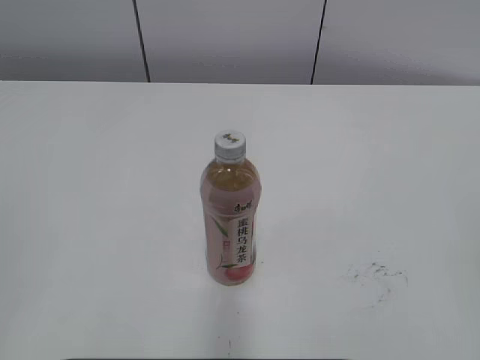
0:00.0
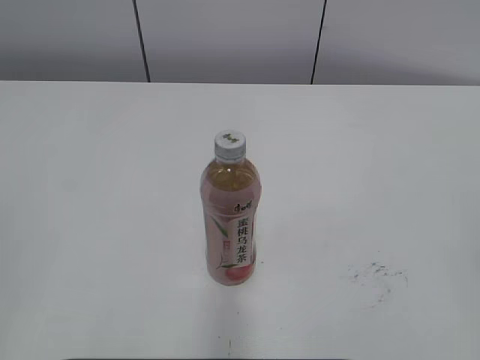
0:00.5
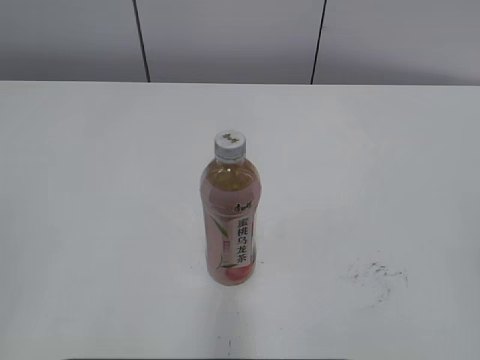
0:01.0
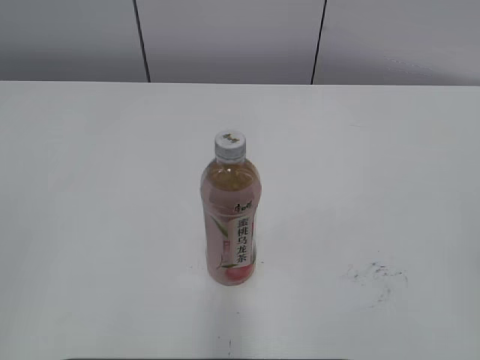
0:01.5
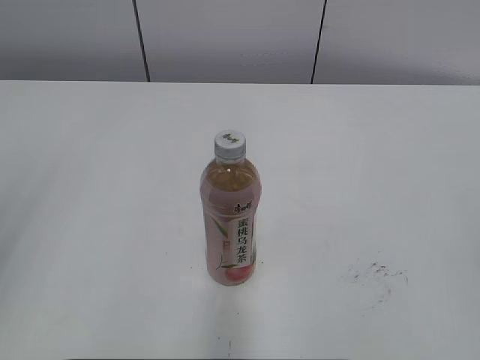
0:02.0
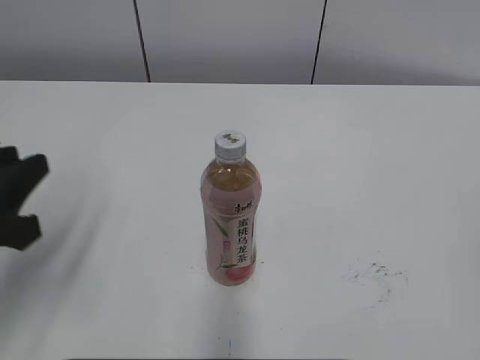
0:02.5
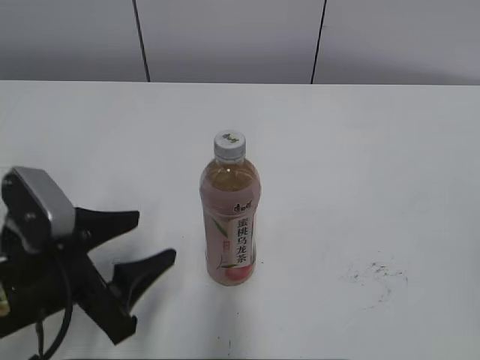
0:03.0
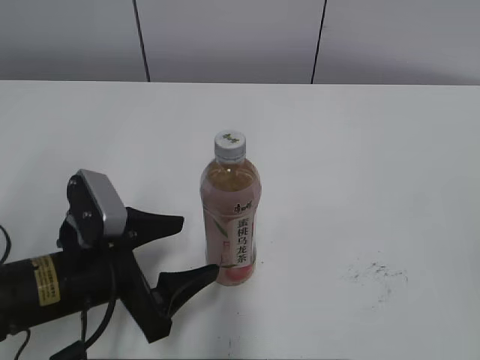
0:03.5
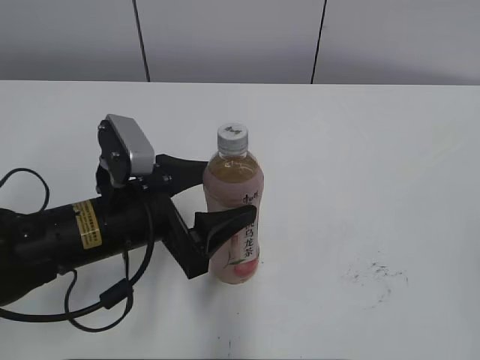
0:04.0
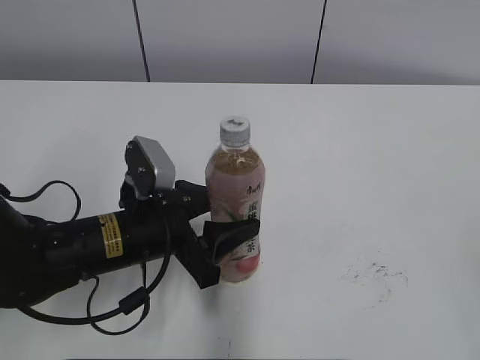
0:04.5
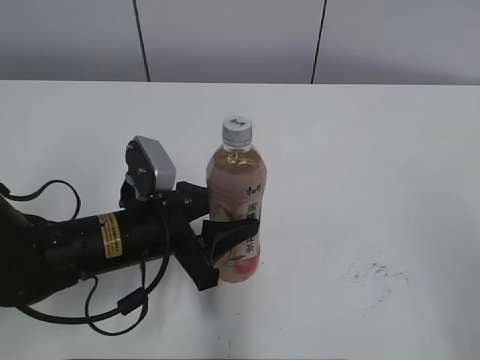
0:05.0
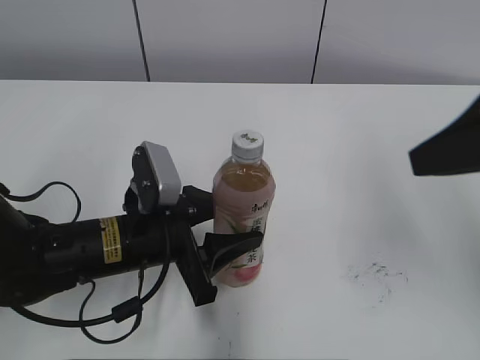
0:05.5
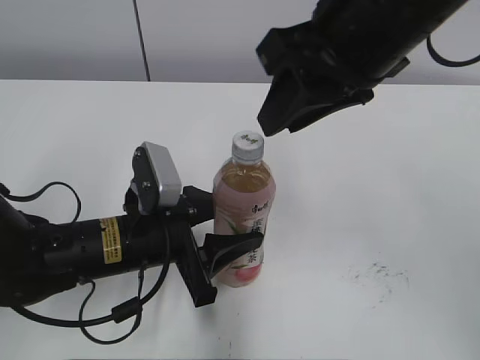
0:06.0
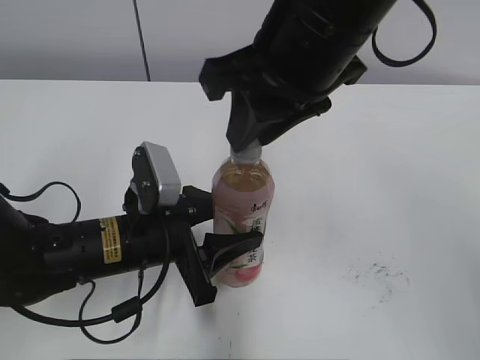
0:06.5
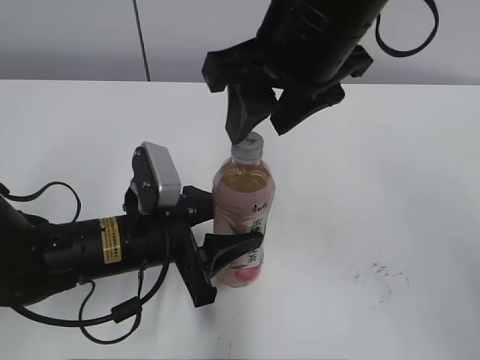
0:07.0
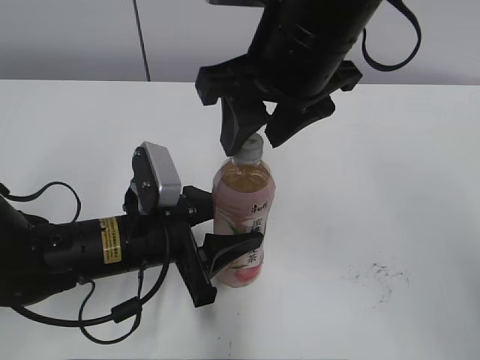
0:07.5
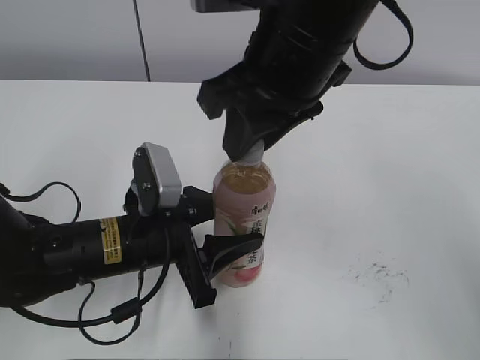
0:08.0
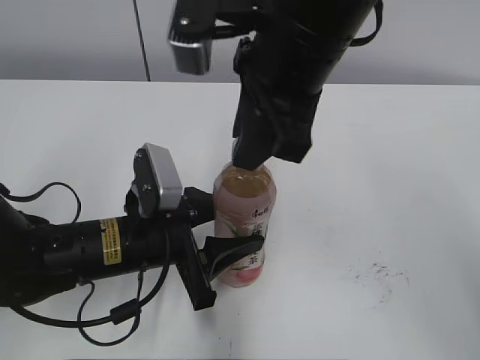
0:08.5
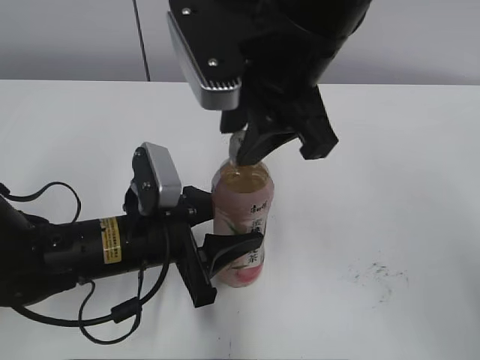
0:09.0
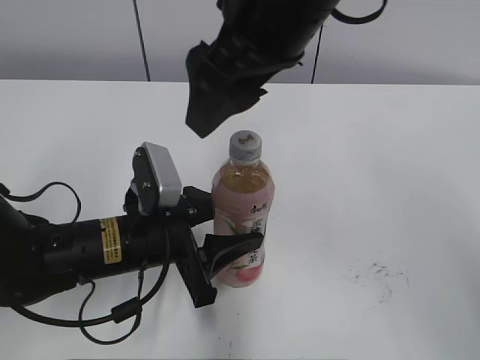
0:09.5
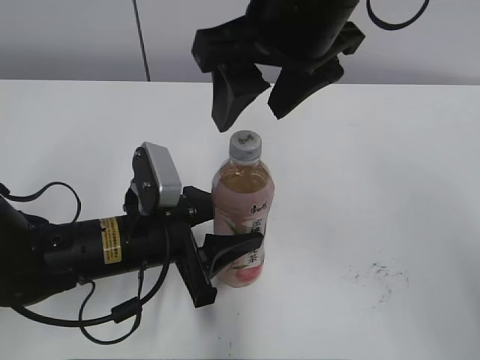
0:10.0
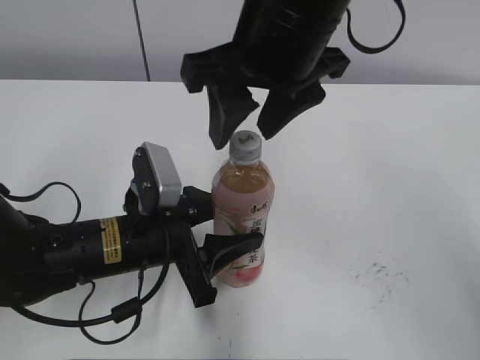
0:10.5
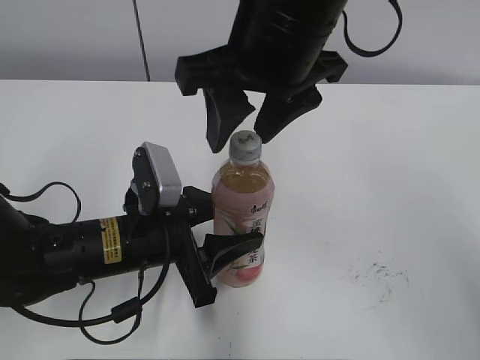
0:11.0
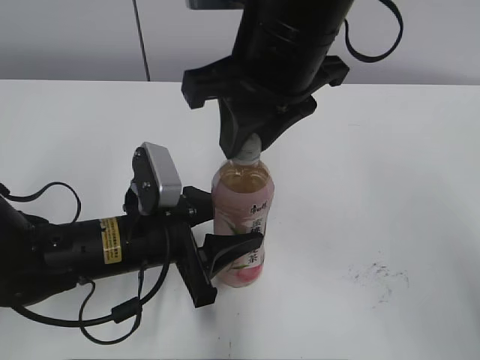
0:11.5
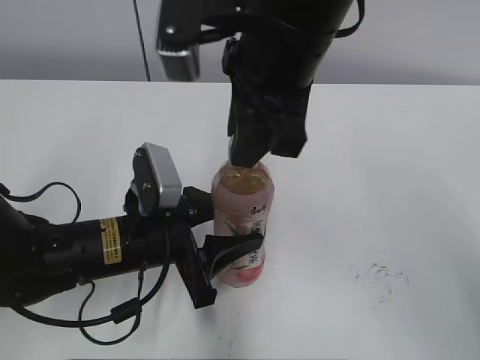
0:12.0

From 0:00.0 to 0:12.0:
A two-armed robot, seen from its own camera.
Step, from 0:00.0 to 0:04.5: Grab the Peach Oolong Tea with the left hand.
From 0:02.0 to 0:04.0: The left gripper heads downward, to the right and forward, covering roughly 30 cm, and opens.
From 0:04.0 to 0:06.0: The left gripper closes its fingers, while the right gripper goes about 35 cm forward and to the left.
From 0:06.0 to 0:08.0: The right gripper changes place by some 5 cm, and opens, then closes once more.
From 0:08.0 to 0:10.0: The right gripper opens.
From 0:10.0 to 0:12.0: The right gripper closes.

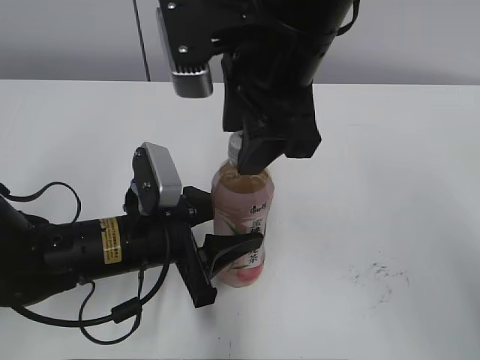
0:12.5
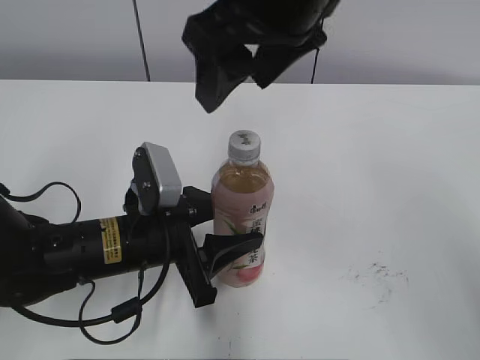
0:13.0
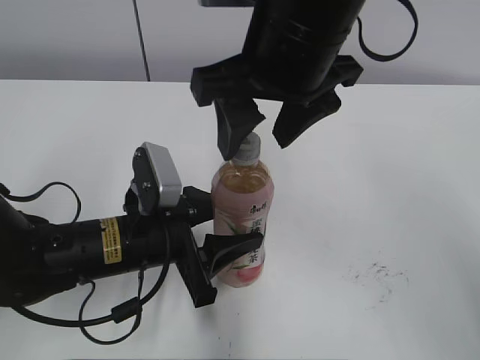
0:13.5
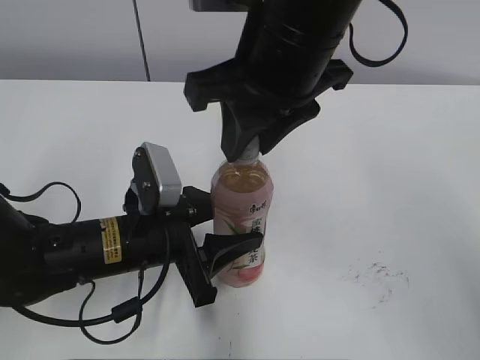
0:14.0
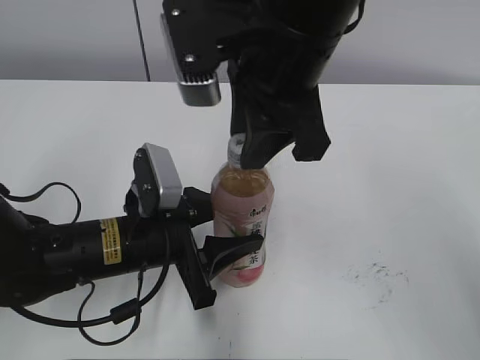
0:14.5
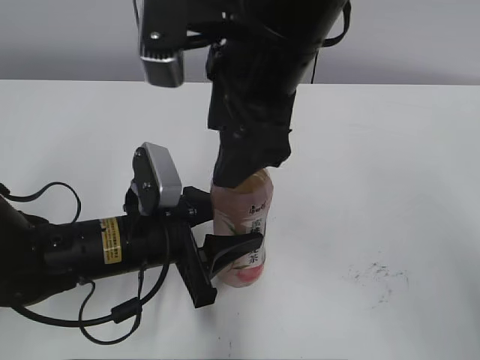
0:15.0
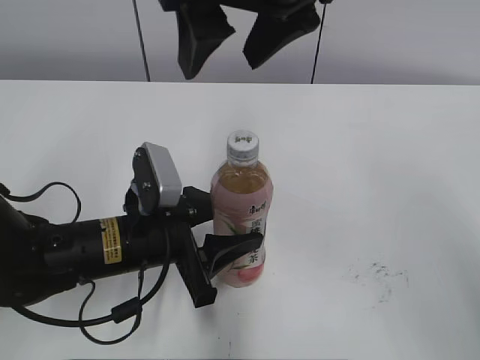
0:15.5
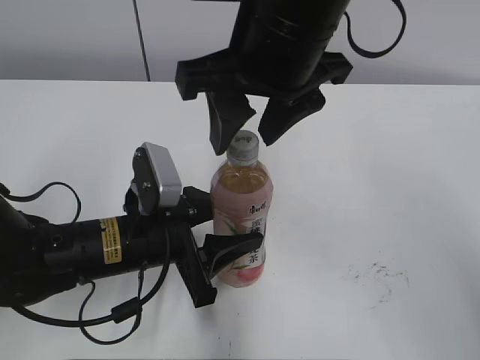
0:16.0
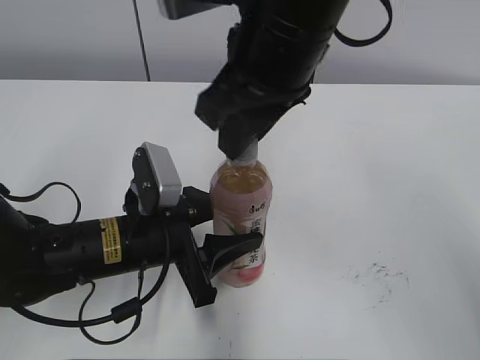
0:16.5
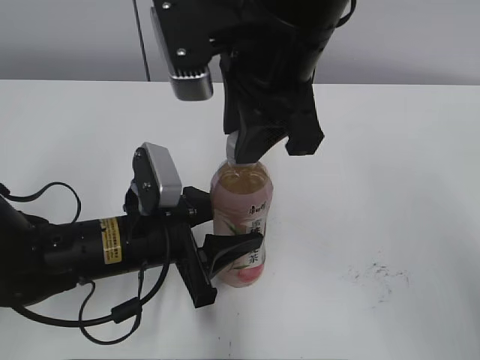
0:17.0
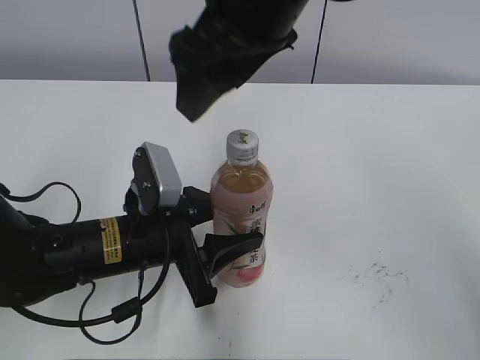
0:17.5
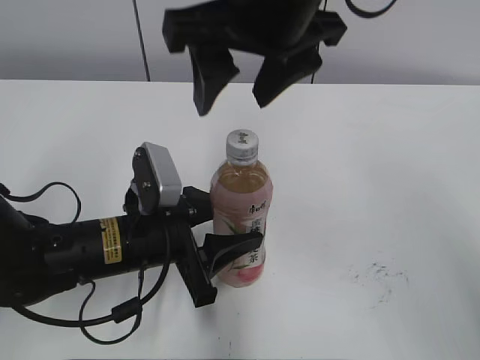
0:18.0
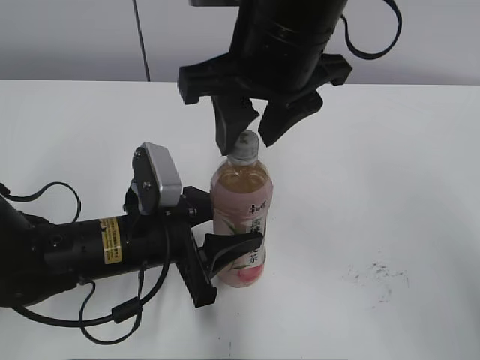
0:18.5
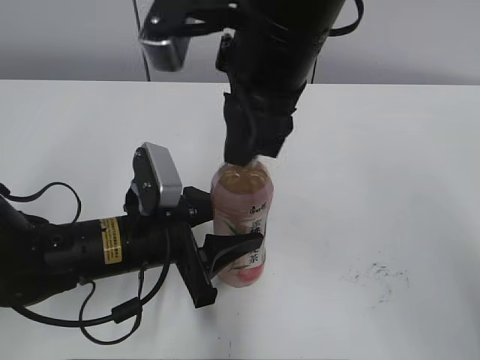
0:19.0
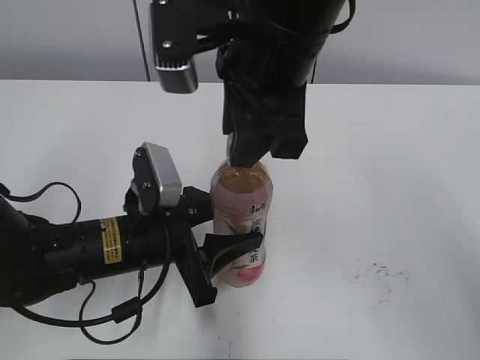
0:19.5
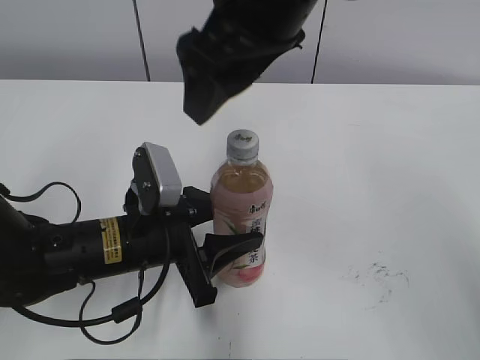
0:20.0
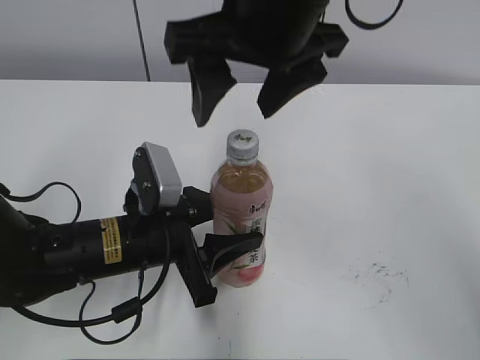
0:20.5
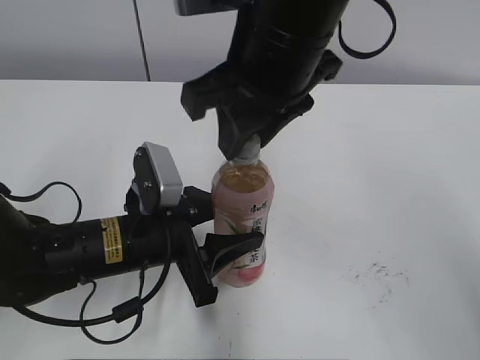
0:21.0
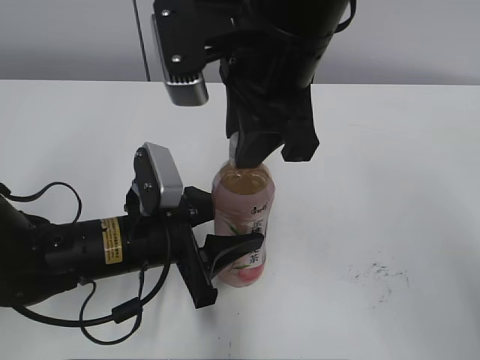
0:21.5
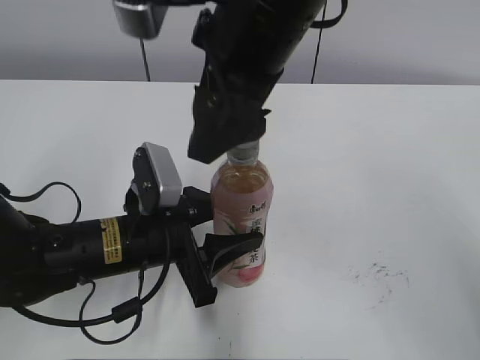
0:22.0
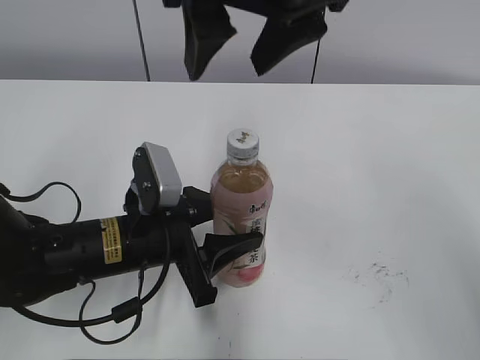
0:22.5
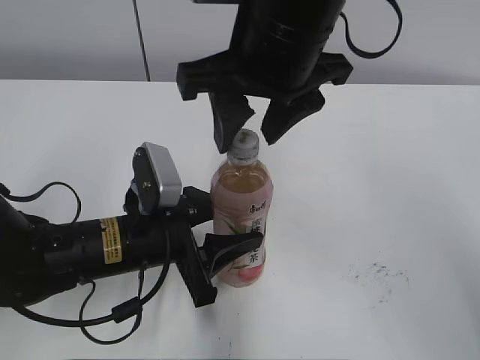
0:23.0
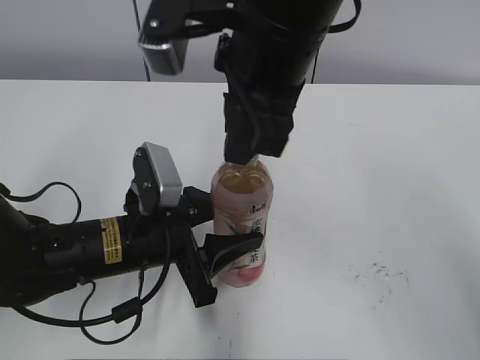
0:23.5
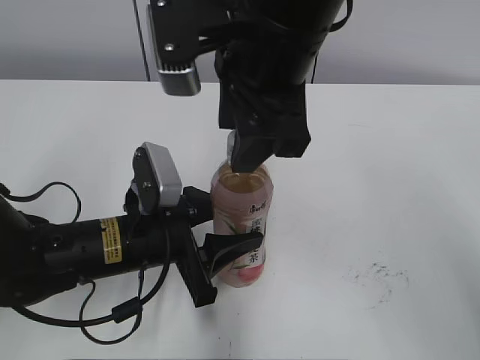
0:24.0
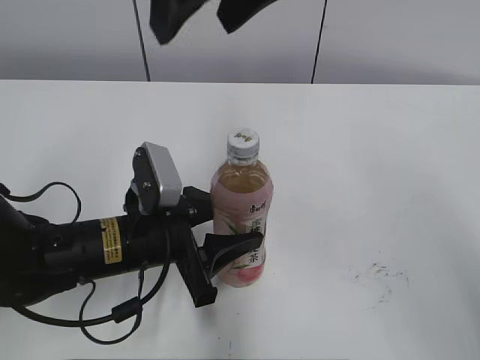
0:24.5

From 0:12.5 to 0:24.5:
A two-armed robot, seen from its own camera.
From 0:12.5 to 0:14.5: The right gripper closes its fingers.
From 0:14.5 to 0:16.5: The right gripper opens and closes again.
From 0:16.5 to 0:18.5: The right gripper opens, then closes once more.
From 0:18.5 to 0:20.5: The right gripper opens up.
From 0:20.5 to 0:22.5: The right gripper closes and opens again.
From 0:22.5 to 0:24.5: The right gripper moves about 5 cm downward and comes back, and closes and opens again.

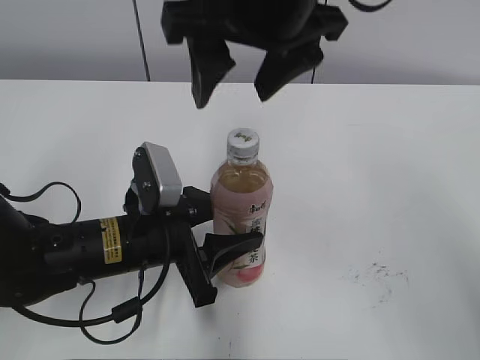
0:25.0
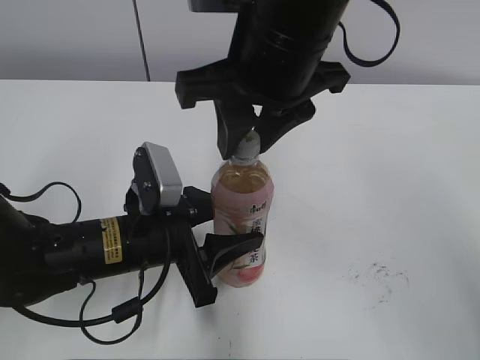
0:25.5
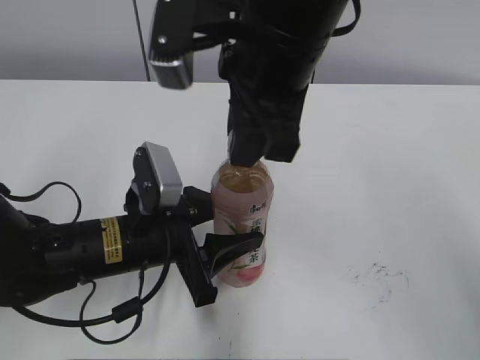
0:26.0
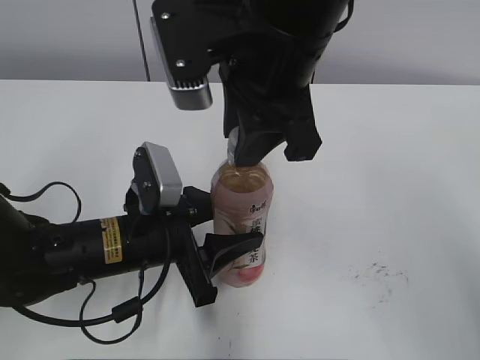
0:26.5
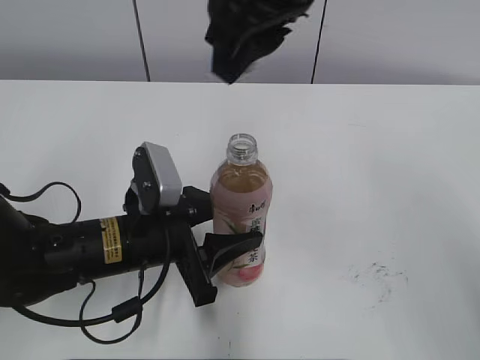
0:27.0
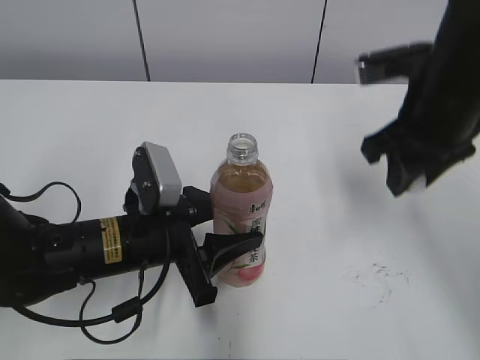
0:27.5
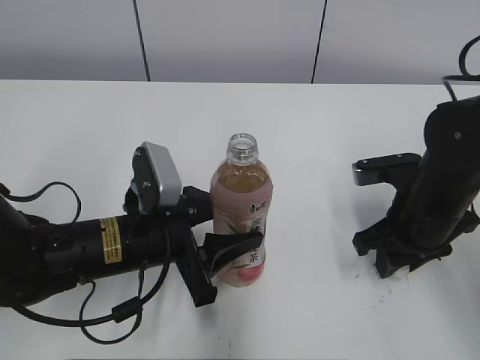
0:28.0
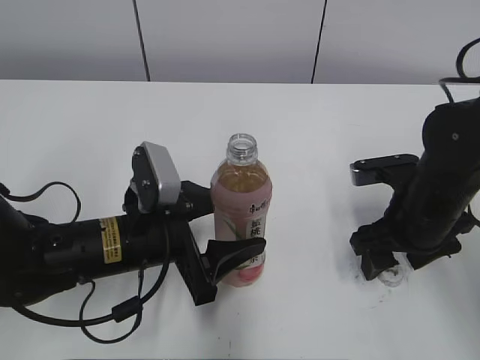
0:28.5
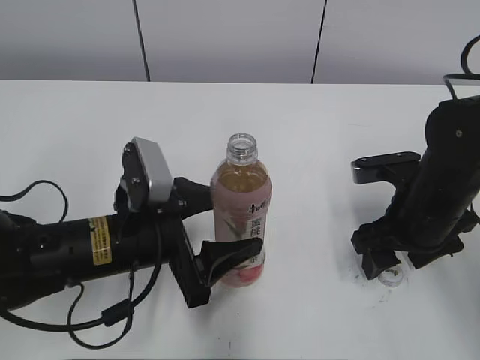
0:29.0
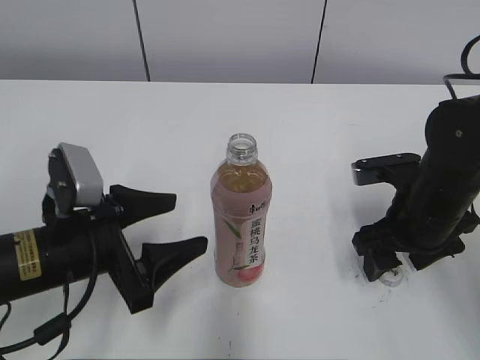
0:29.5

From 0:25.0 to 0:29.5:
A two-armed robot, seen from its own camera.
Step, from 0:27.0 to 0:28.0: Place the bottle cap on the right.
From 0:25.0 to 0:27.0: The right gripper closes.
From 0:27.0 to 0:29.5: The left gripper is displaced to the left by approximately 5 cm, and opens up, while the right gripper is displaced downward and to the right by roughly 30 cm, and opens its fingers.
